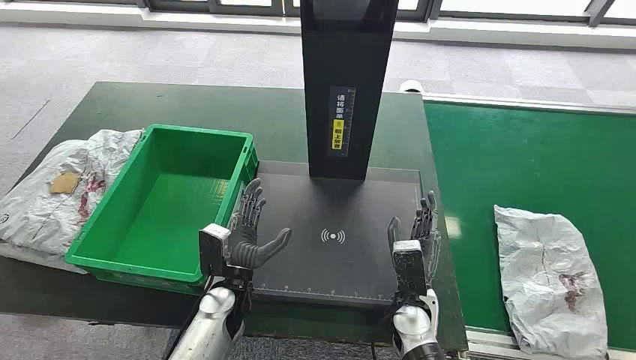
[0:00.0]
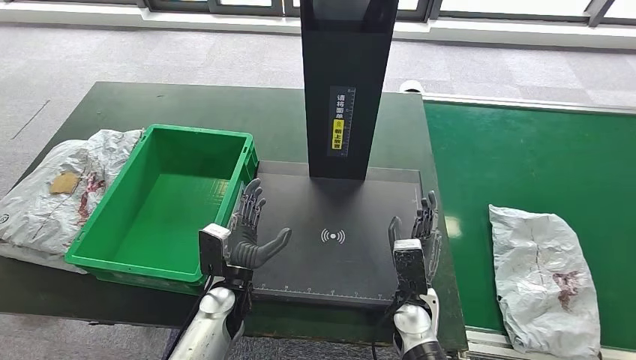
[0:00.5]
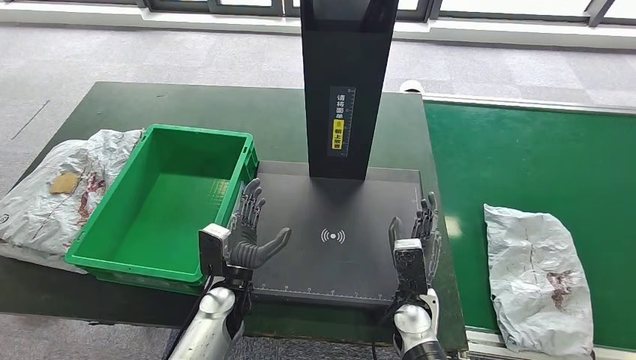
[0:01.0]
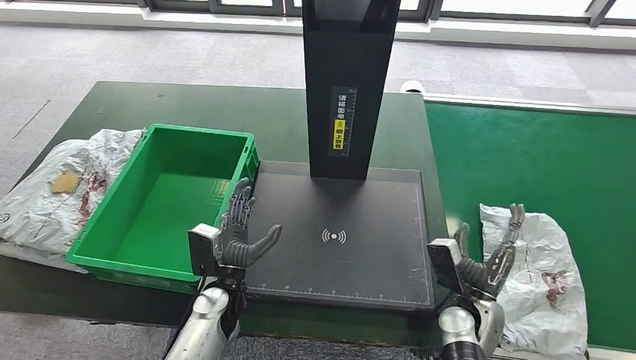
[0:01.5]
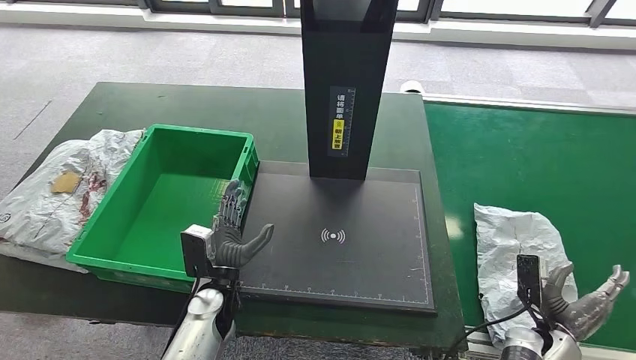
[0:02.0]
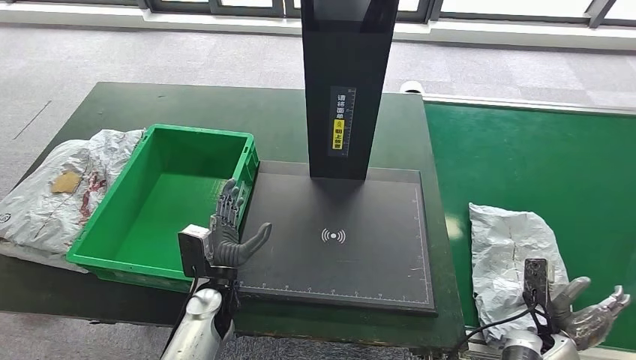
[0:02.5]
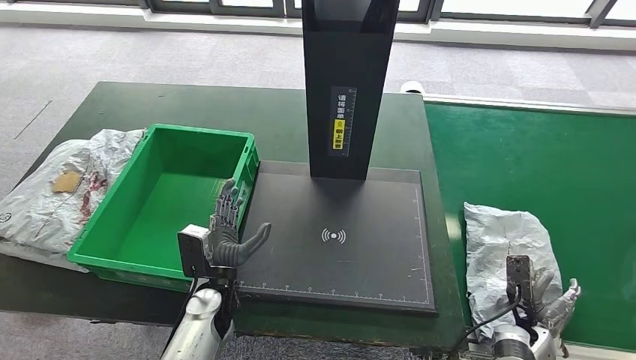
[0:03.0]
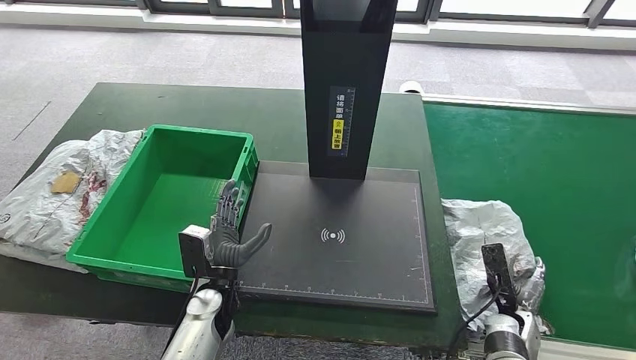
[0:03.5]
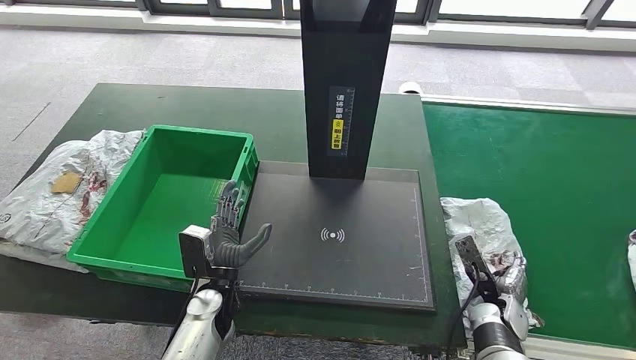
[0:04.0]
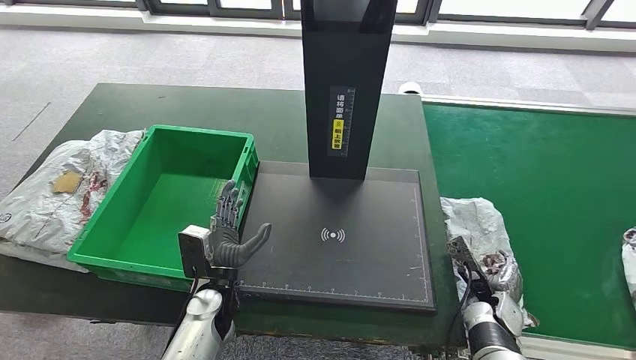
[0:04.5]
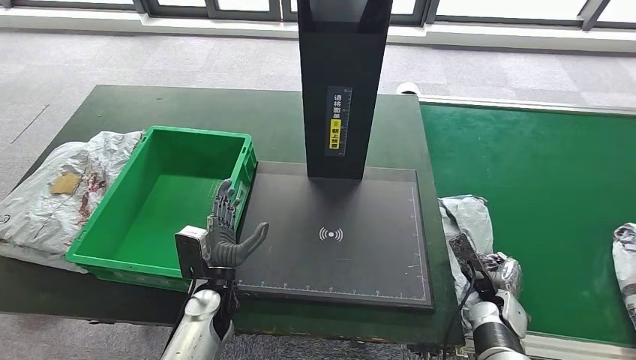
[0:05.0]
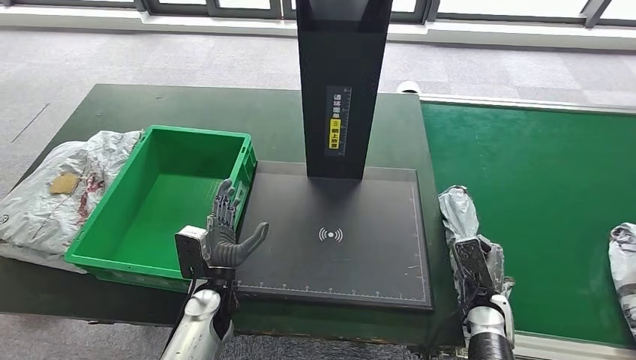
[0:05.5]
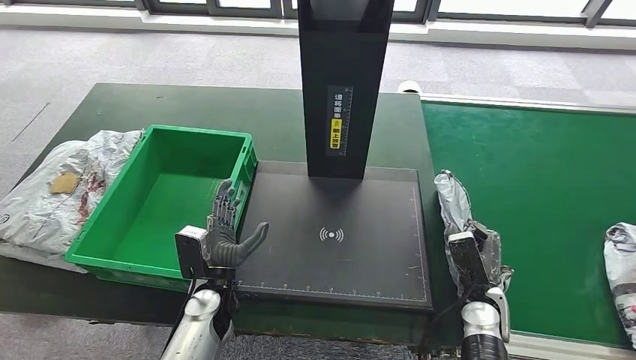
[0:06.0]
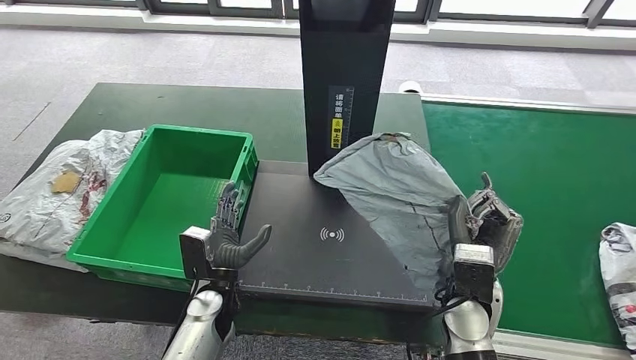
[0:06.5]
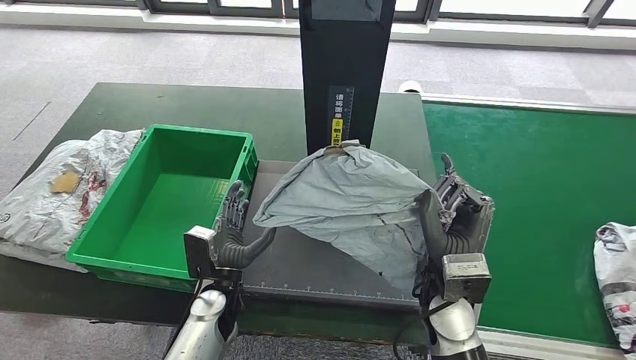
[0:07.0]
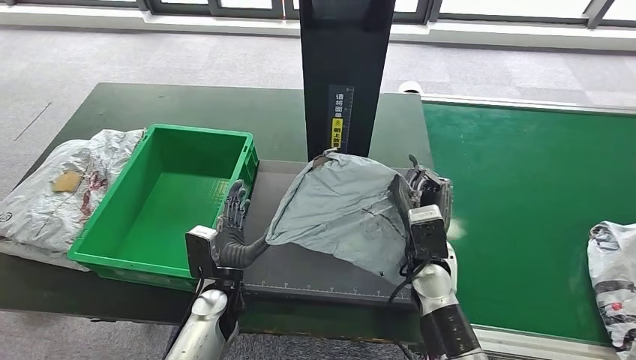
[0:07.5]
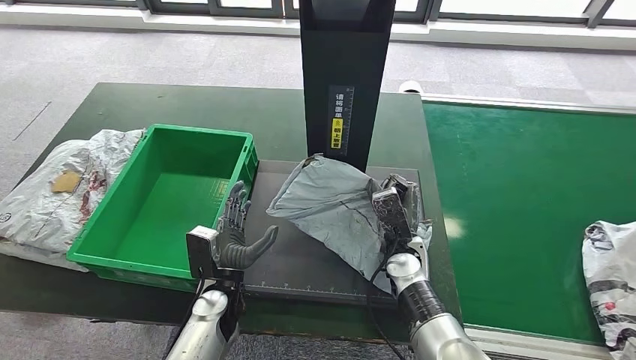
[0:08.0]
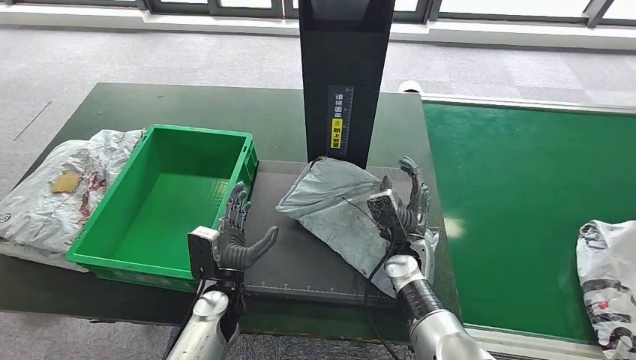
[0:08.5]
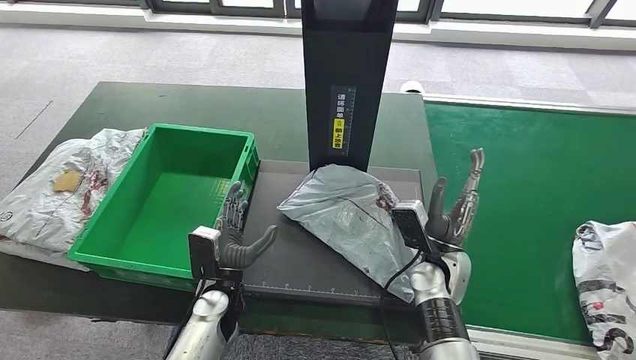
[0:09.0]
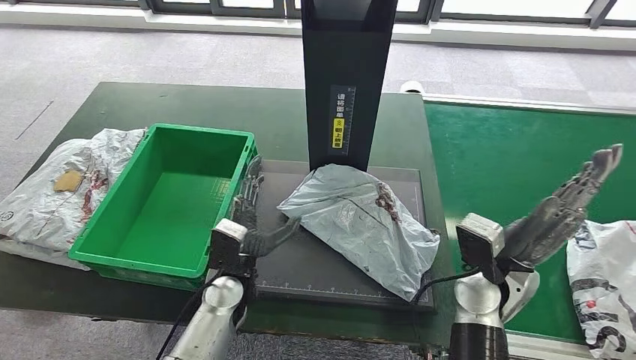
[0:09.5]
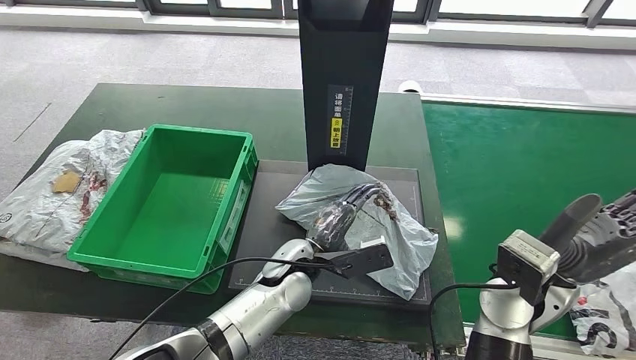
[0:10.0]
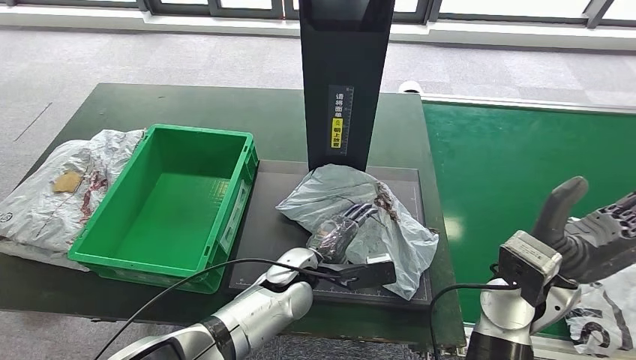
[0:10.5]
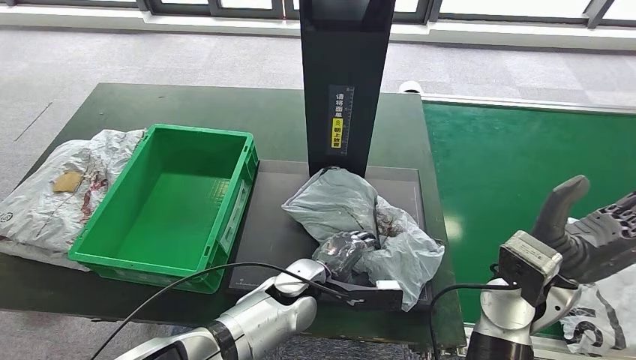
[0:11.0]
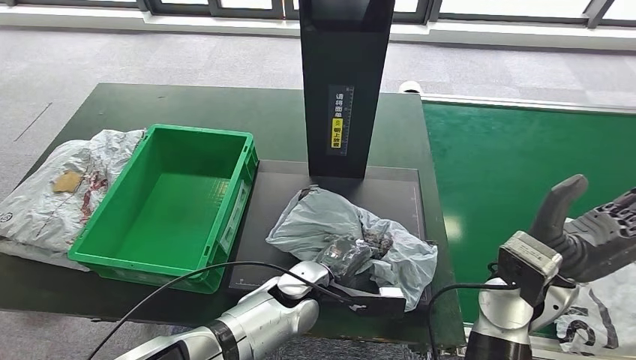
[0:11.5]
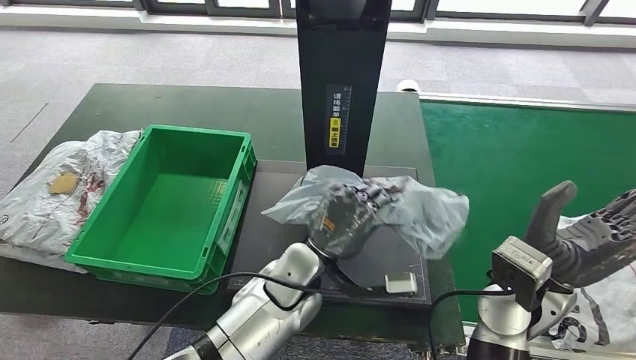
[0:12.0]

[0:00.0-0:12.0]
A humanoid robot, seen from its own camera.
Step, 0:00.0 to 0:06.5: Take the parcel off the conveyor belt.
Step, 0:07.0 to 0:09.5: Place the parcel onto the inbound machine.
0:02.0 to 0:04.0: The right hand is displaced to the left by about 5 cm.
0:04.0 to 0:06.0: The right hand shifts some 5 cm to the left.
0:06.0 to 0:08.0: The right hand travels to the left and forward by approximately 15 cm.

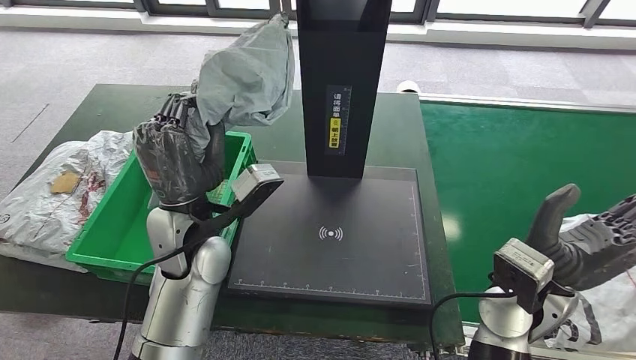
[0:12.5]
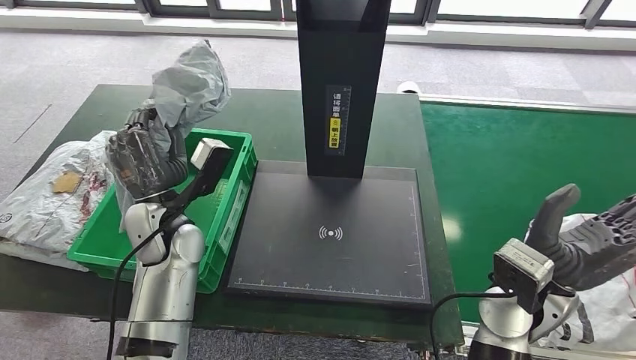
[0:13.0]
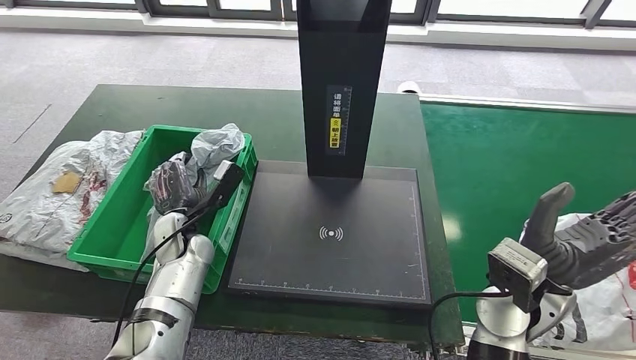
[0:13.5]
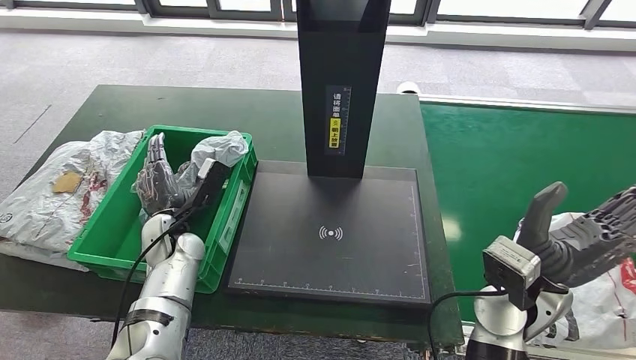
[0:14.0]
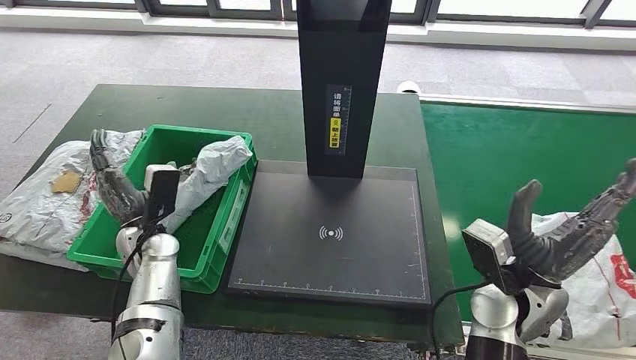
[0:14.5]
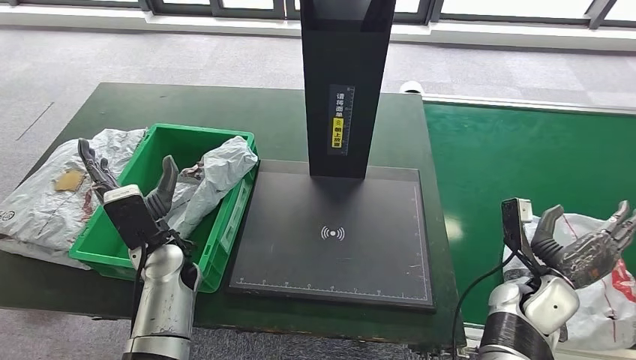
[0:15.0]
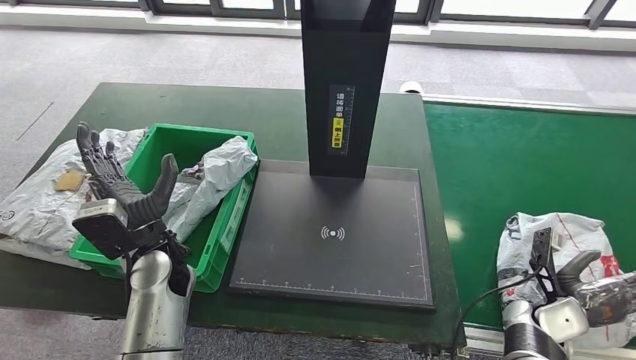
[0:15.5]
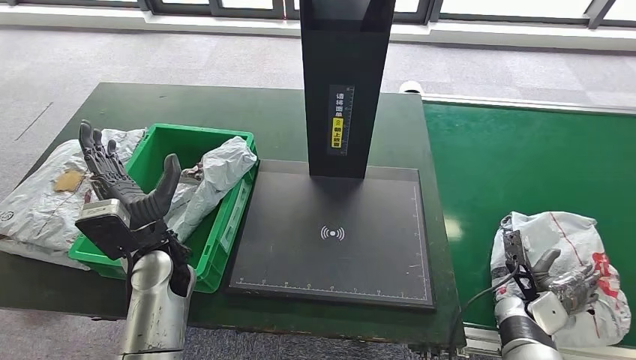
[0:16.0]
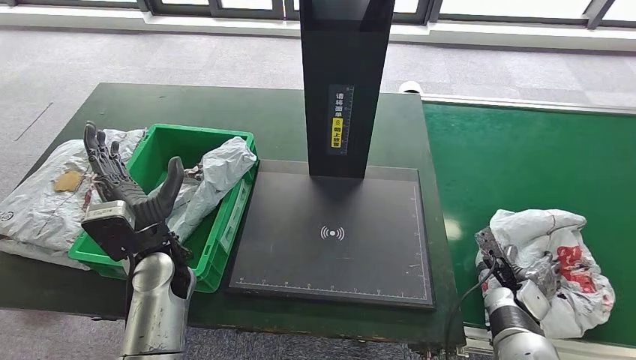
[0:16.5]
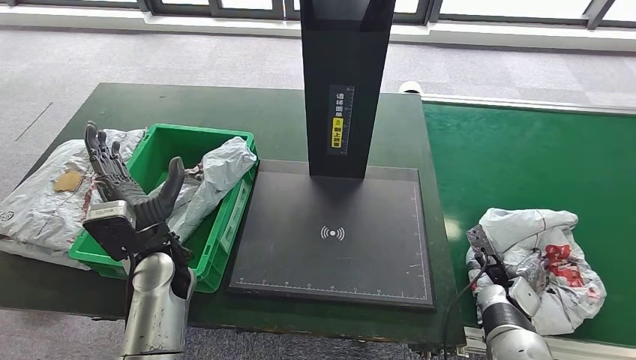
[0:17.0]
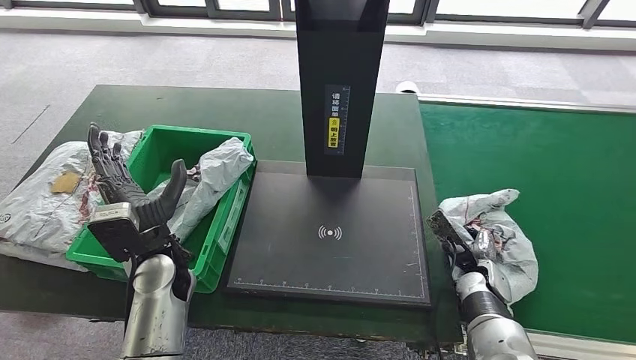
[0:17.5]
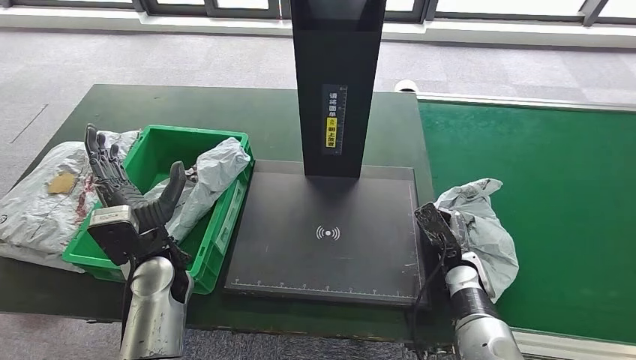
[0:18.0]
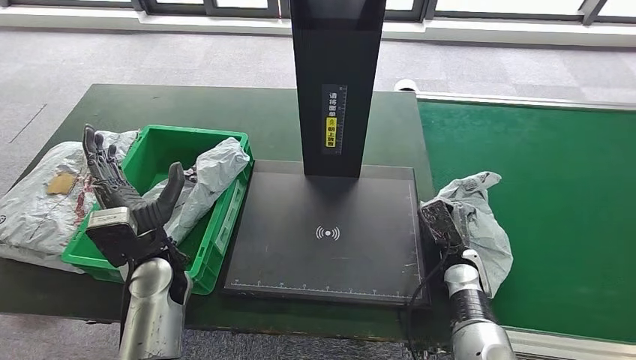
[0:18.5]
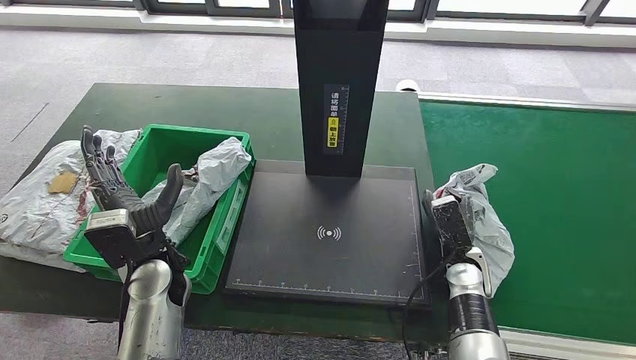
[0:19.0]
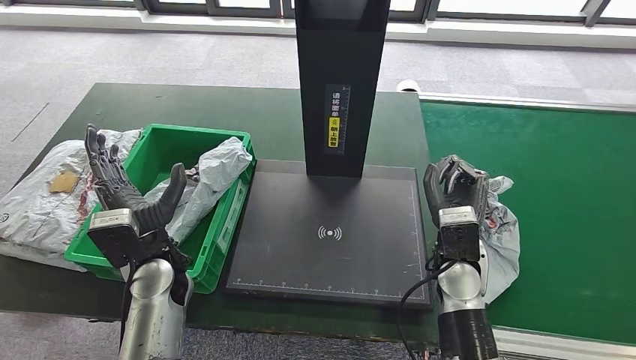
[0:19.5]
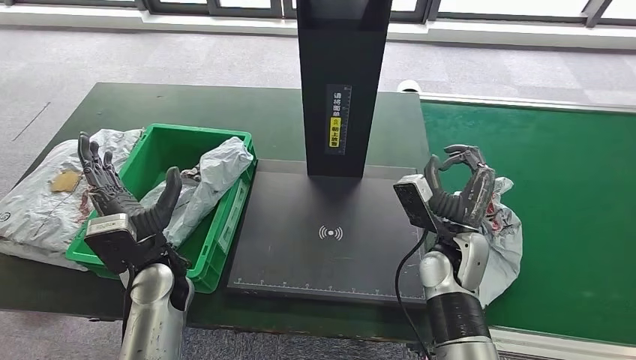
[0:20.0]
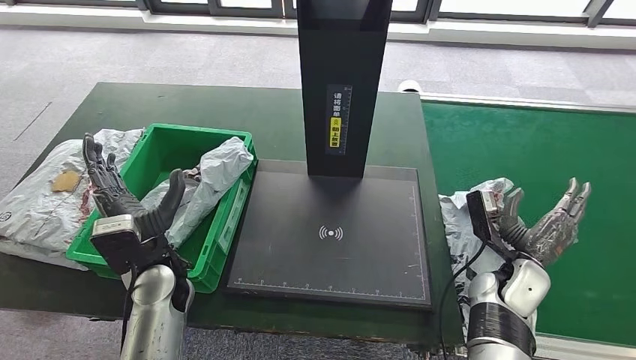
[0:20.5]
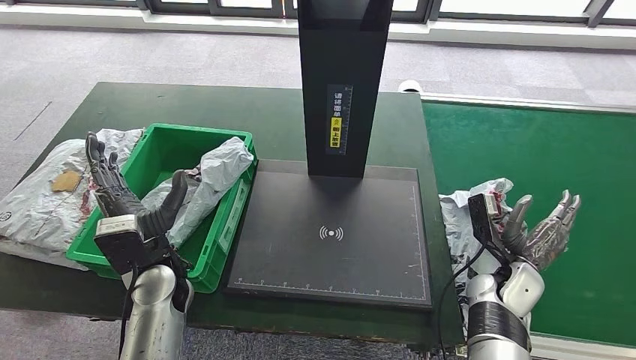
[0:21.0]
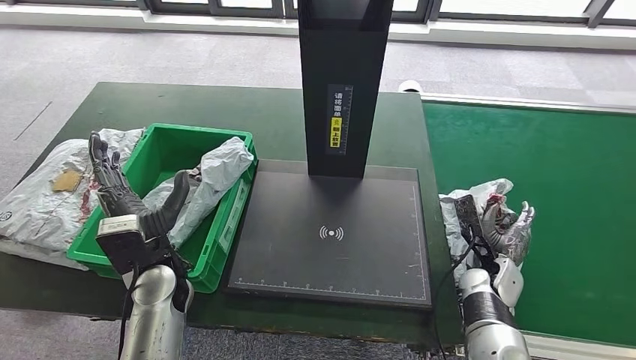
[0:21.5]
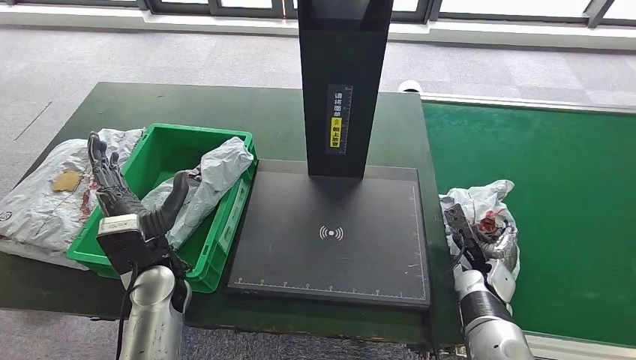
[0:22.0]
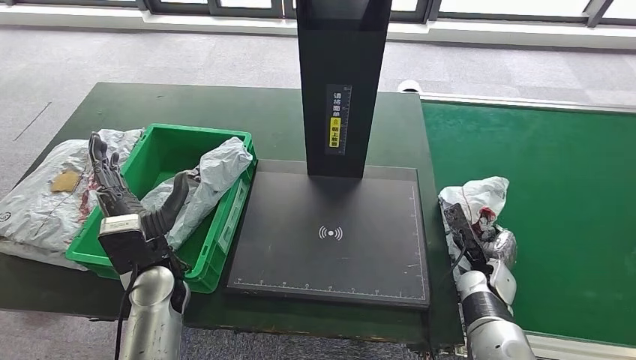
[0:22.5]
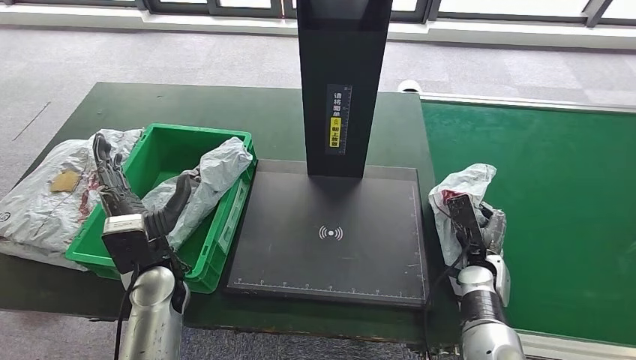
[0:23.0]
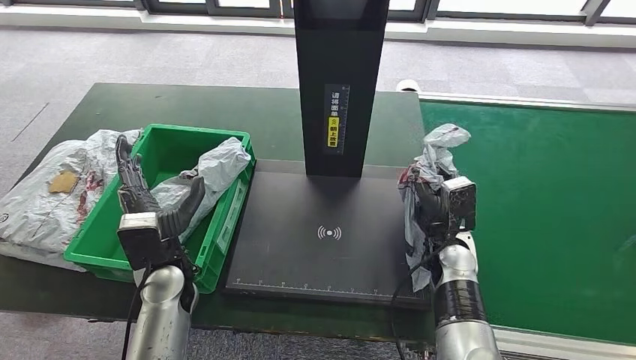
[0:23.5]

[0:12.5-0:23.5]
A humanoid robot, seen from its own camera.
Step, 0:13.0 to 0:15.0: Put the parcel inside the courier box.
0:18.0 to 0:20.0: The right hand travels upward and to the left by roughly 15 cm.
0:20.0 to 0:21.5: The right hand travels to the right and downward by about 15 cm.
